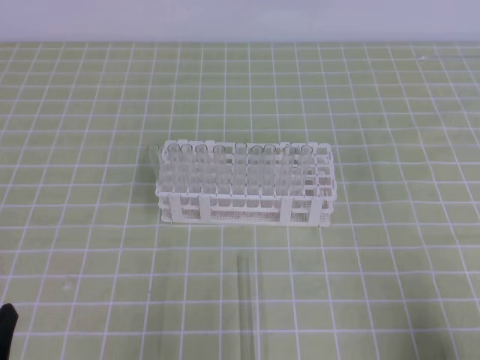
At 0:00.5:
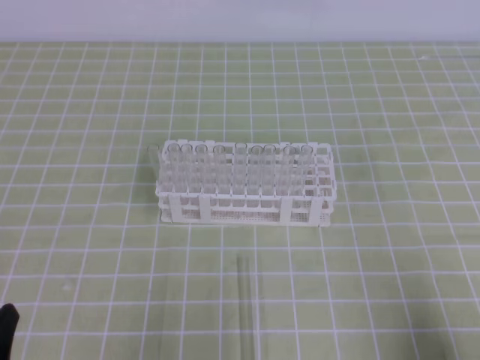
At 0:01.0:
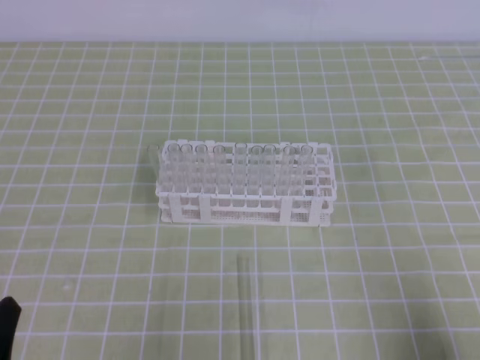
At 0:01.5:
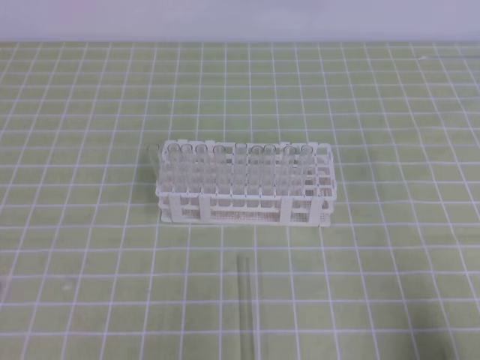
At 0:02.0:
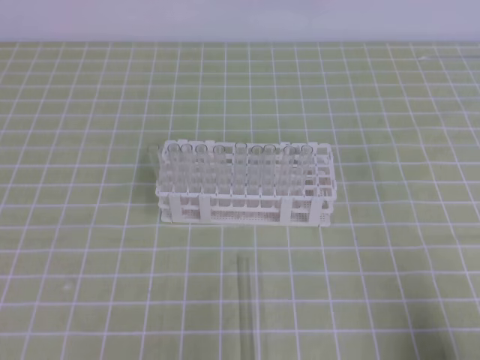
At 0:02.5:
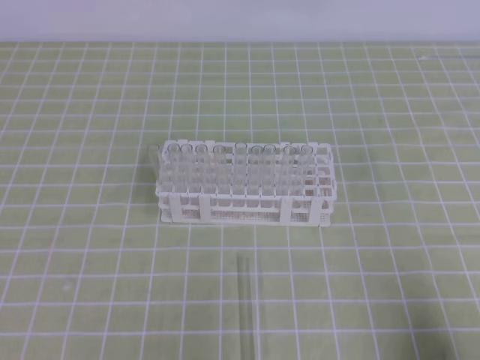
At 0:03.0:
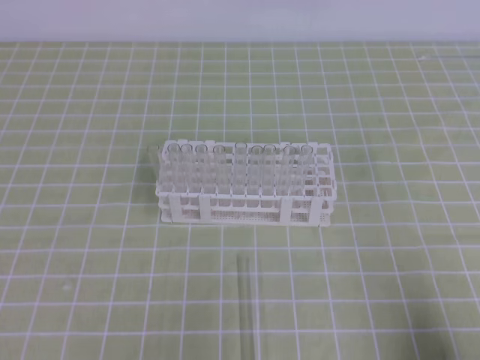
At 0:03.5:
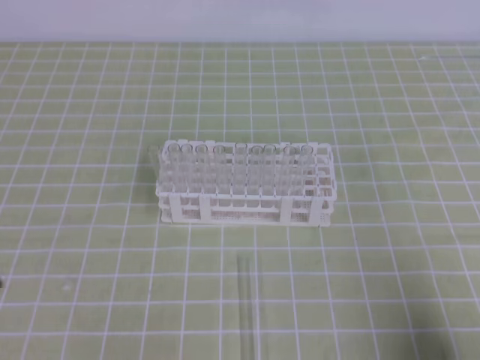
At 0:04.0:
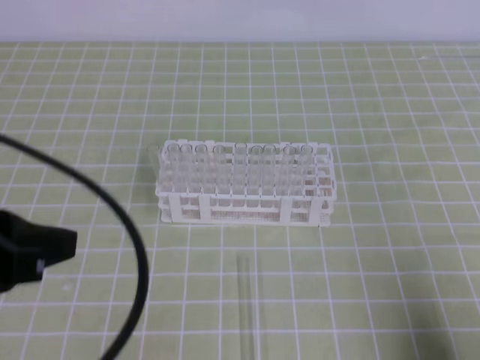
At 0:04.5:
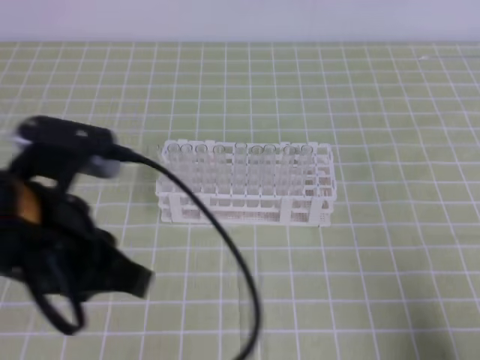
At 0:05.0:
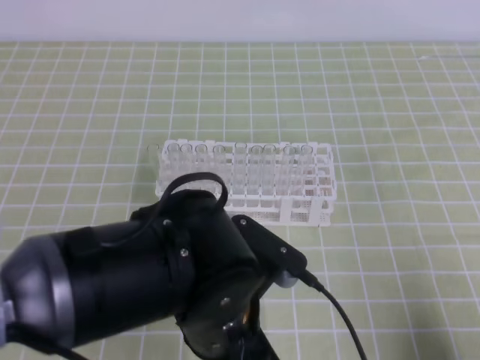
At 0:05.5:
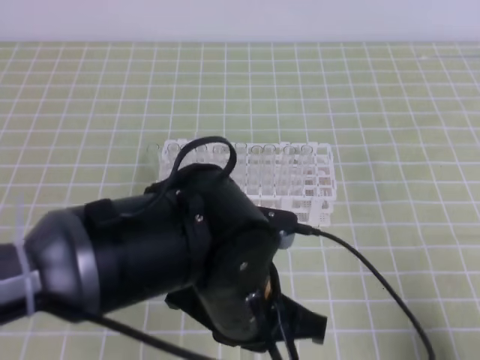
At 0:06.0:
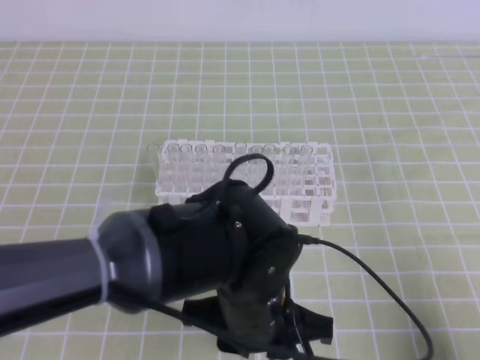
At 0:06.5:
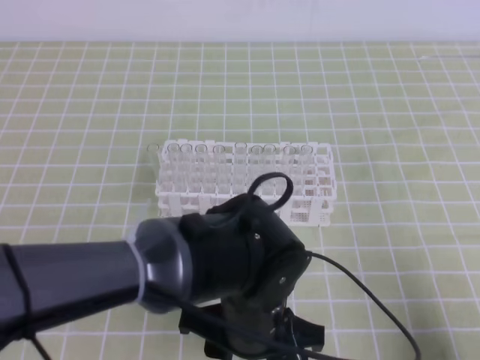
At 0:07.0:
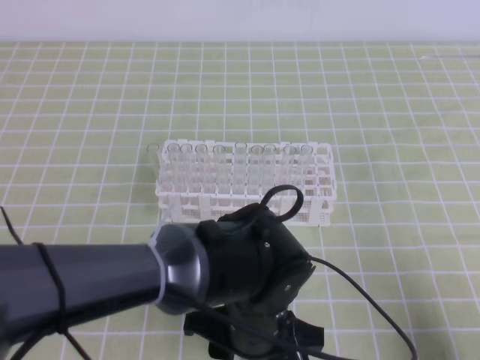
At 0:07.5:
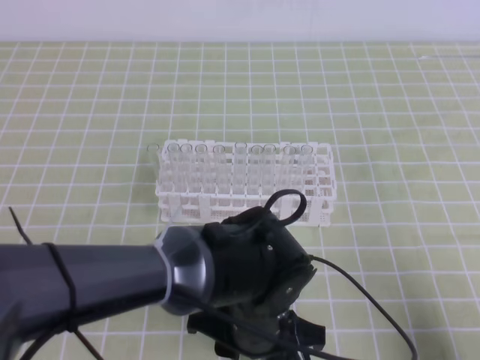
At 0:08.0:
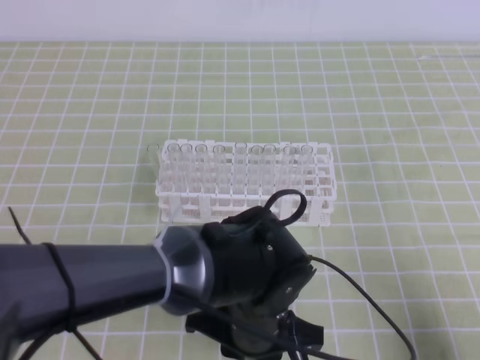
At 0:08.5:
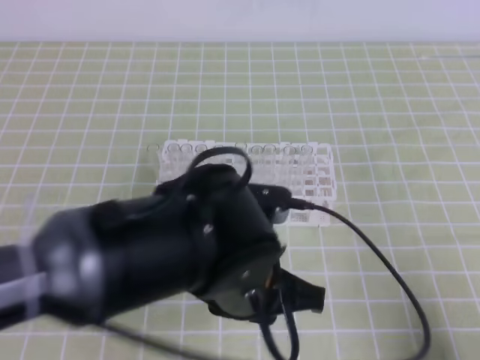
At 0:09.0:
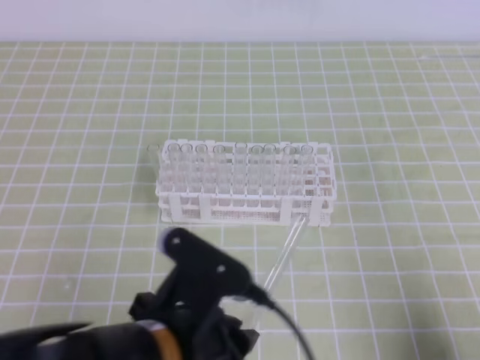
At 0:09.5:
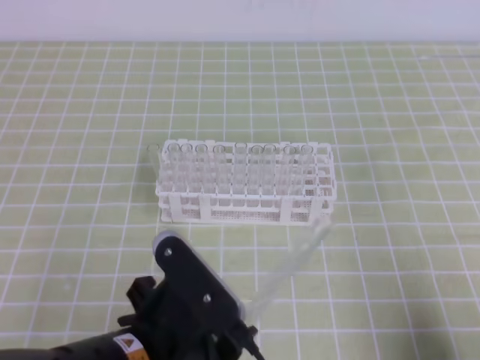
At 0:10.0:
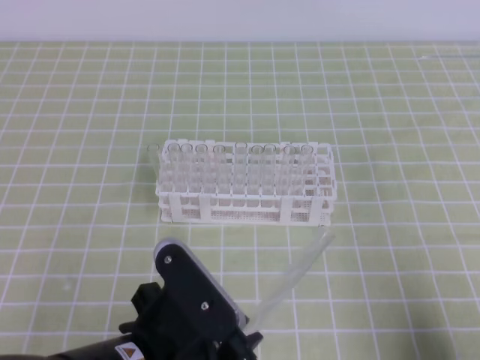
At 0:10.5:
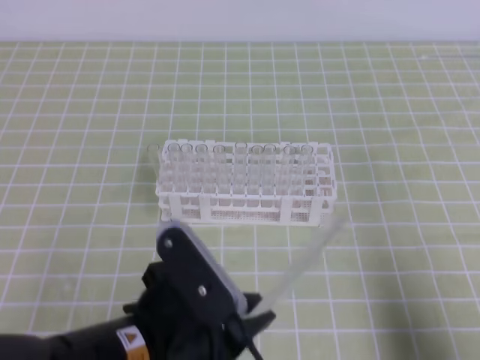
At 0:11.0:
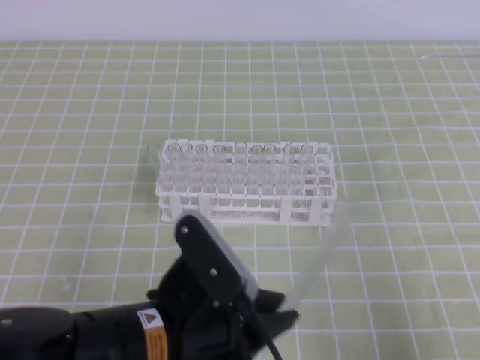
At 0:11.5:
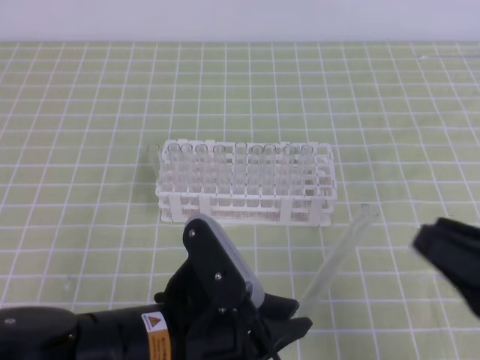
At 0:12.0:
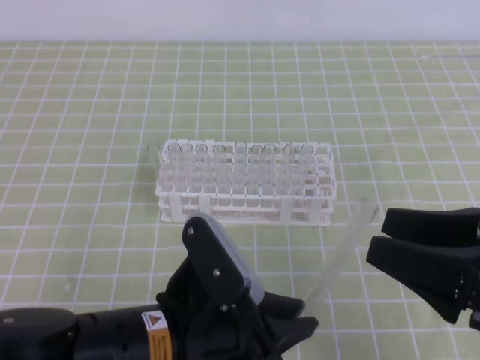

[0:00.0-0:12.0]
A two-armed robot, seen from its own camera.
0:02.0 to 0:04.0: The left gripper moves upward, to the right and forward, roughly 15 cm, and closes its fingers.
0:04.0 to 0:06.0: The left gripper shifts some 25 cm to the right and downward, and opens its fingers.
0:06.0 to 0:08.0: The grippers make only small movements.
0:08.0 to 0:10.0: The left gripper goes roughly 15 cm to the left, backward and upward.
0:10.0 to 0:12.0: The right gripper shifts approximately 15 cm forward, upward and to the left, and opens.

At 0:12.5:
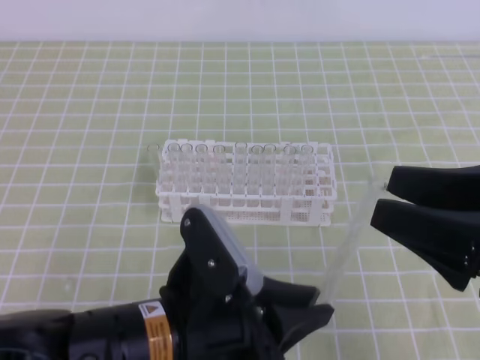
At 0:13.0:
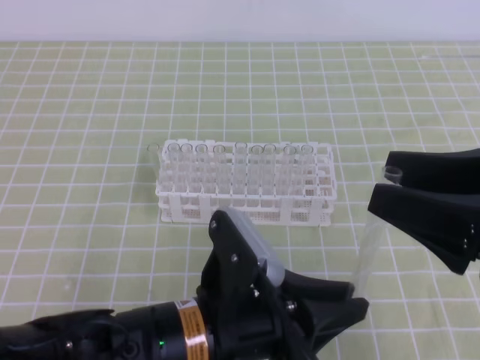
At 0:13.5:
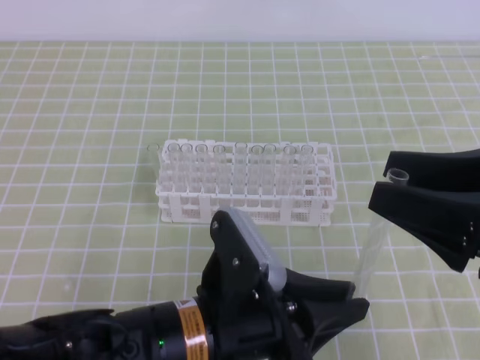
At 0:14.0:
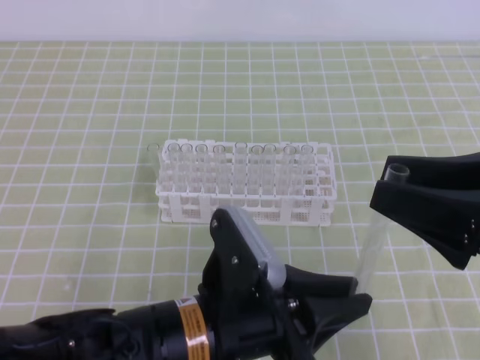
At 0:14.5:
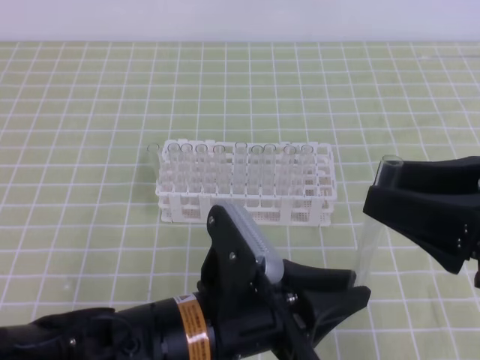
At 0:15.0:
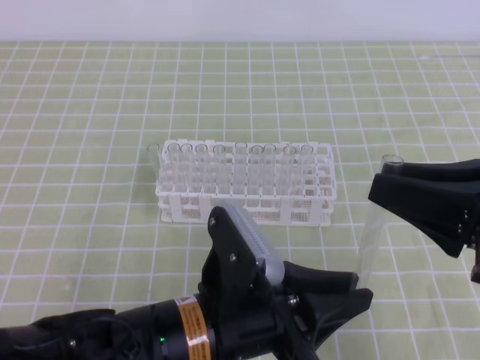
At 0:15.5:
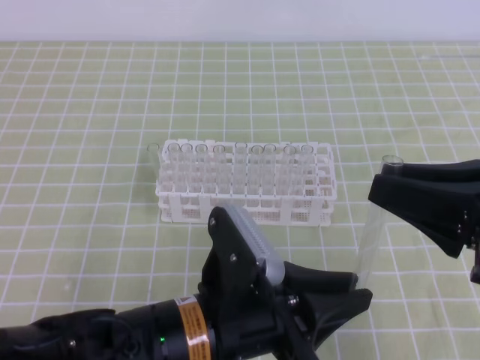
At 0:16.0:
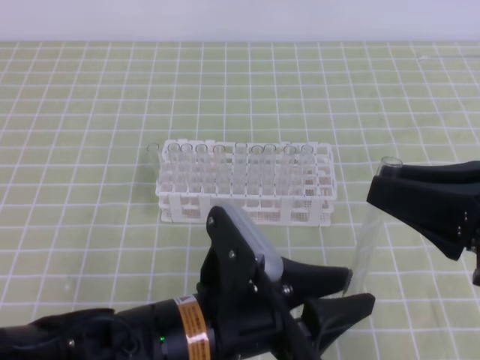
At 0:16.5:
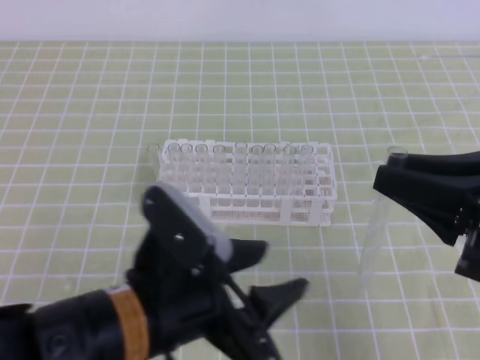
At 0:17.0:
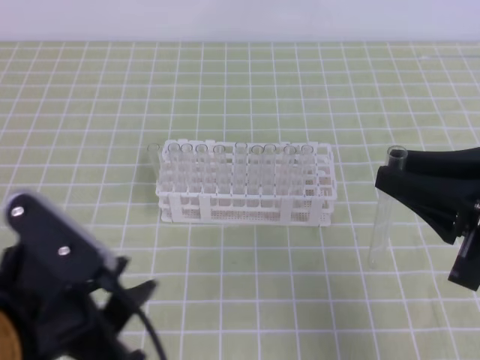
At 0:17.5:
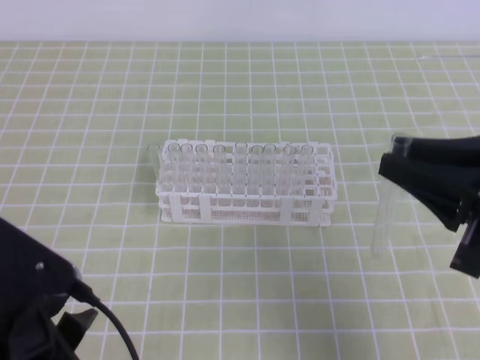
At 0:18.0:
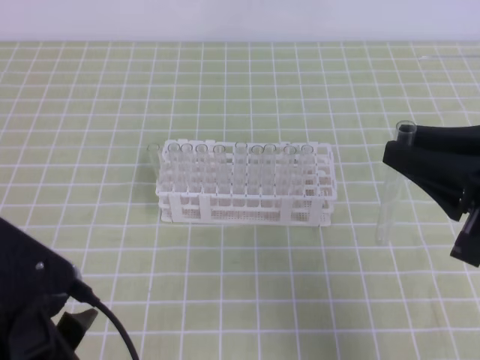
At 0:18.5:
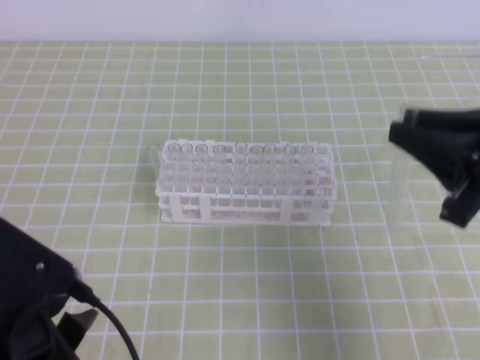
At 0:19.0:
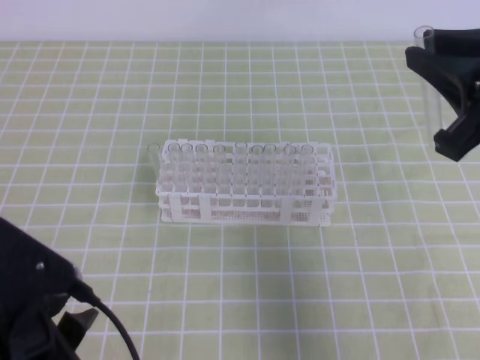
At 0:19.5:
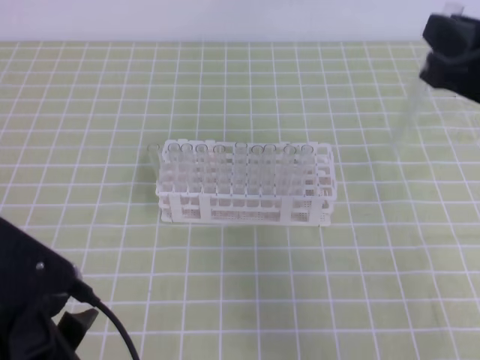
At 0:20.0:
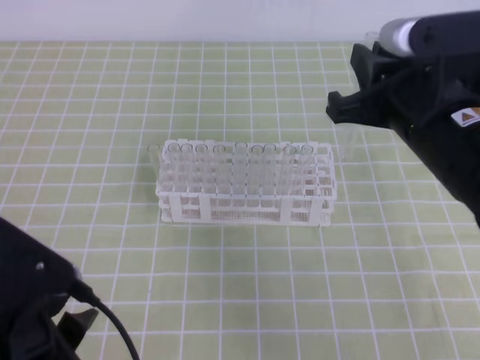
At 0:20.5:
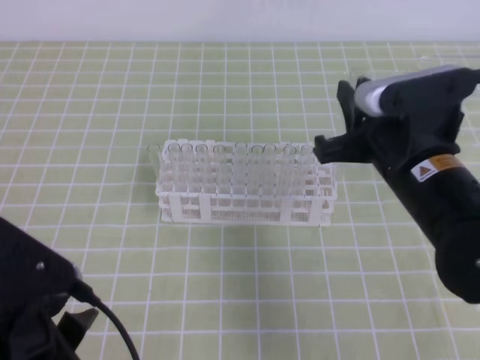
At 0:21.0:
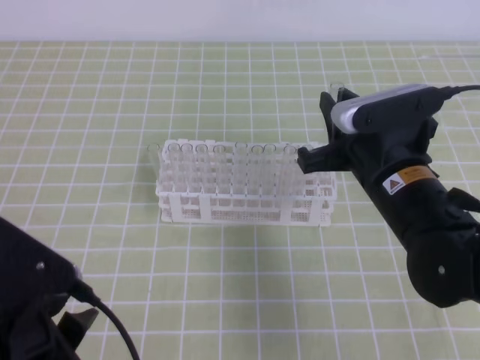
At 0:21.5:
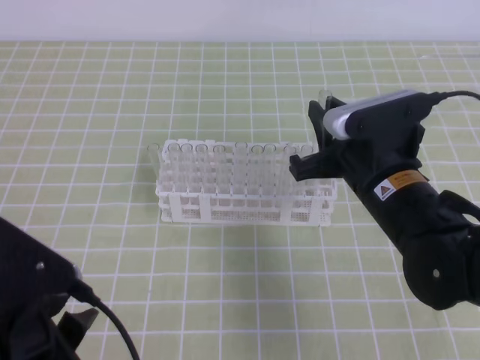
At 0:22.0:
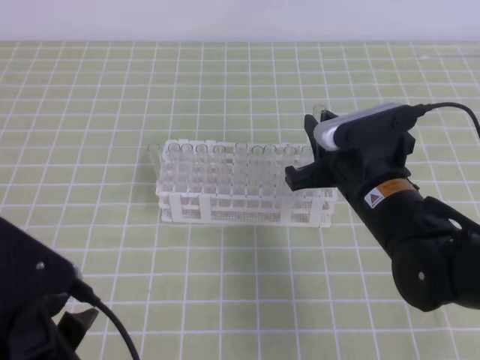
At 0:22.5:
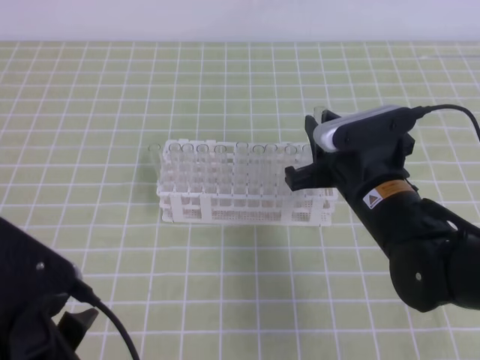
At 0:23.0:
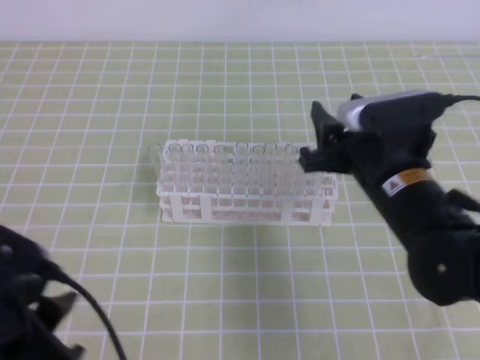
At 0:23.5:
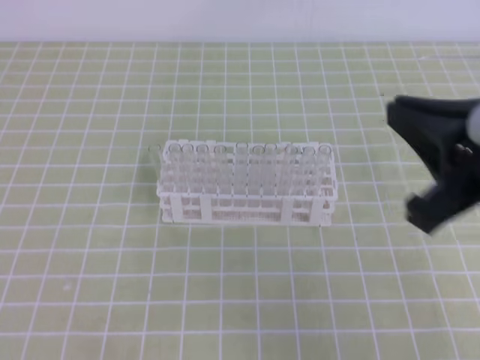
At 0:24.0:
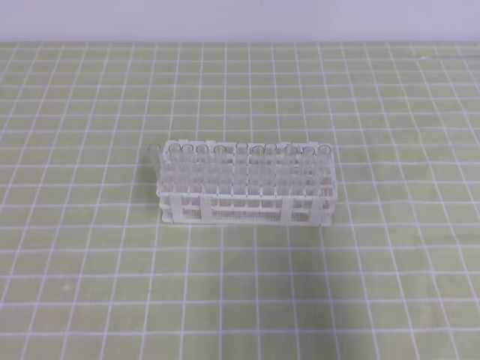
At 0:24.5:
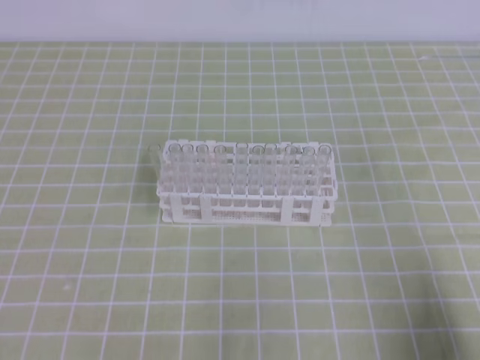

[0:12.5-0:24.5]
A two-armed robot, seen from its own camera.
0:12.5 to 0:14.5: There are only small adjustments of the grippers.
0:14.5 to 0:16.5: The right gripper closes, while the left gripper opens up.
0:16.5 to 0:18.5: The left gripper heads to the left, covering about 10 cm, and closes its fingers.
0:18.5 to 0:20.5: The right gripper heads to the left and forward, covering roughly 10 cm.
0:20.5 to 0:22.5: The right gripper goes some 5 cm downward.
0:22.5 to 0:24.5: The left gripper shifts some 10 cm to the left, while the right gripper goes about 30 cm backward and to the right, and closes its fingers.

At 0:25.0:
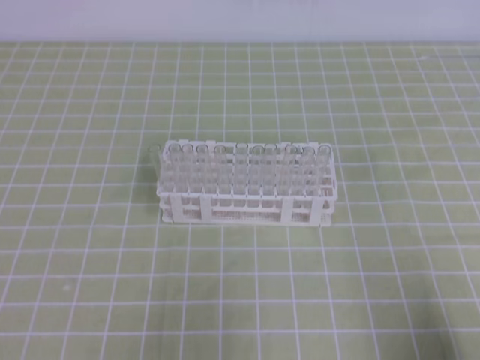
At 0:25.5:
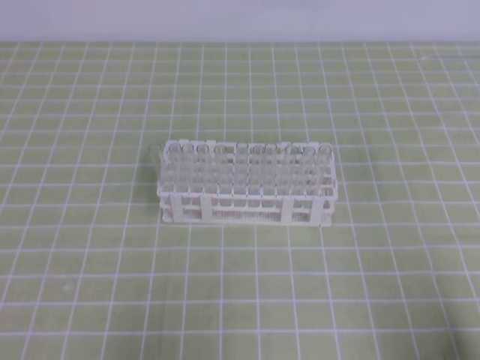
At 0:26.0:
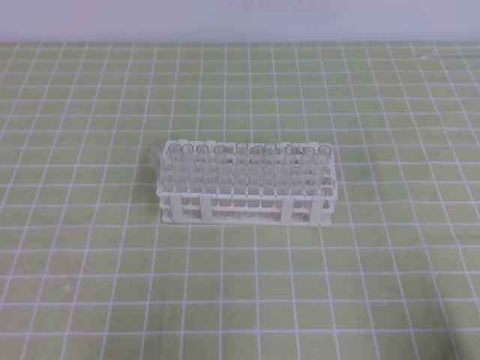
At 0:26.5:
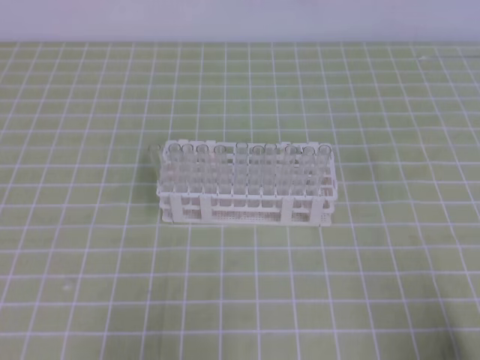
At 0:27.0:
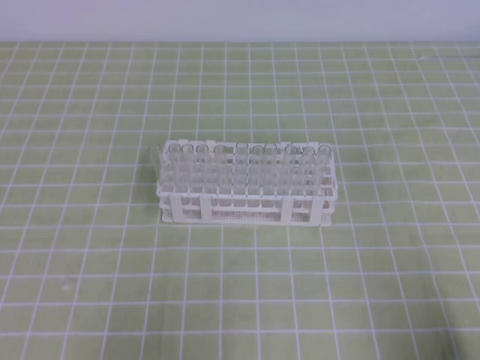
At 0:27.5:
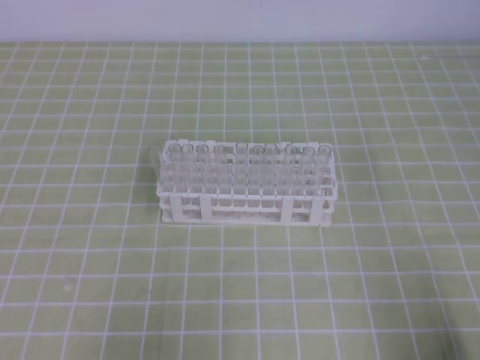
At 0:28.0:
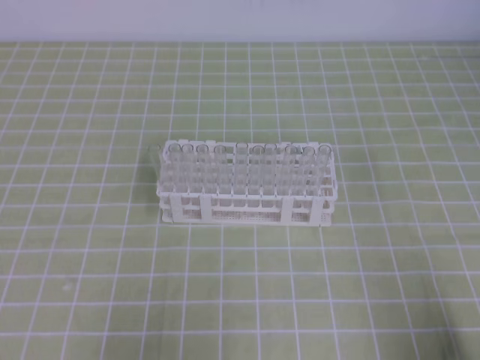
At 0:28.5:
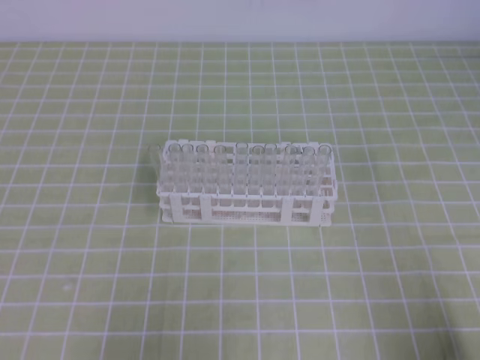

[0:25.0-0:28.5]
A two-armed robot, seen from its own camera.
0:27.0 to 0:28.5: The two grippers keep their place.
